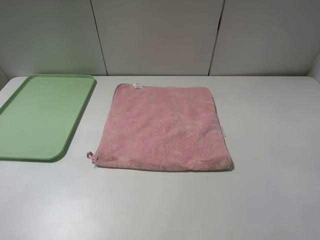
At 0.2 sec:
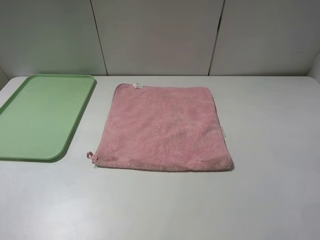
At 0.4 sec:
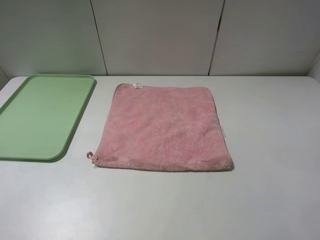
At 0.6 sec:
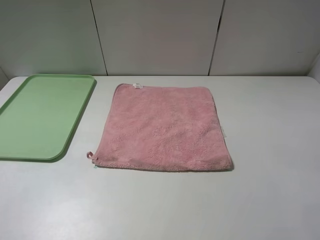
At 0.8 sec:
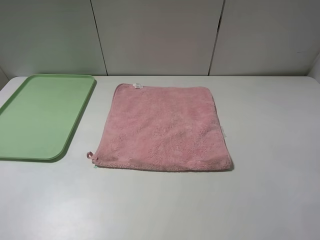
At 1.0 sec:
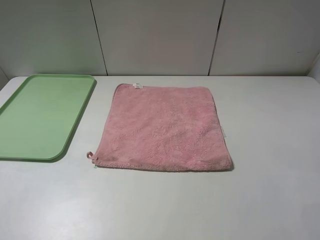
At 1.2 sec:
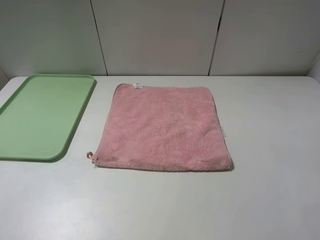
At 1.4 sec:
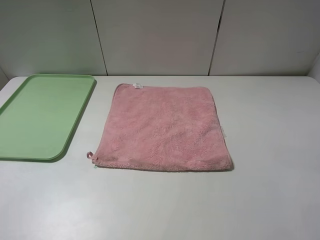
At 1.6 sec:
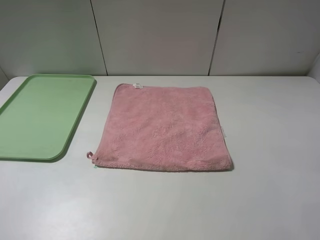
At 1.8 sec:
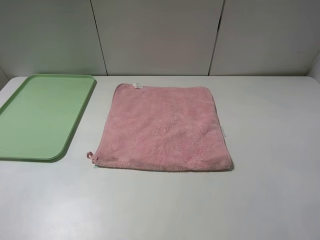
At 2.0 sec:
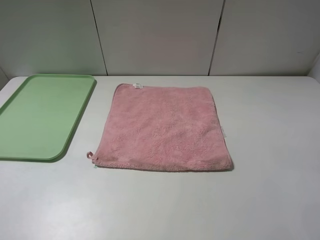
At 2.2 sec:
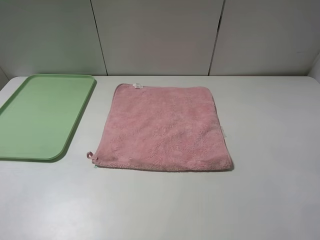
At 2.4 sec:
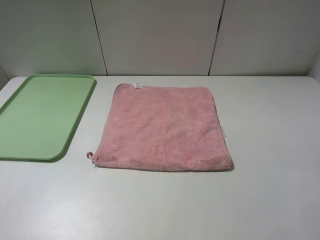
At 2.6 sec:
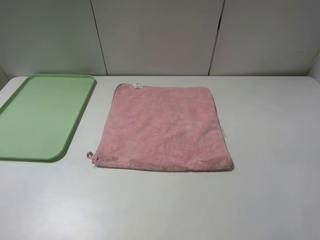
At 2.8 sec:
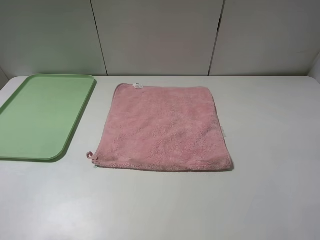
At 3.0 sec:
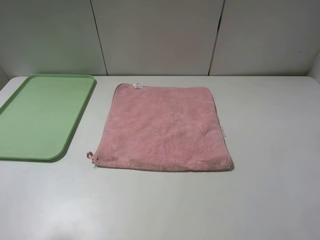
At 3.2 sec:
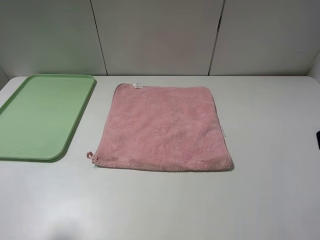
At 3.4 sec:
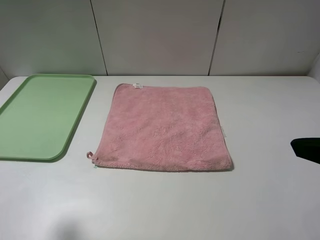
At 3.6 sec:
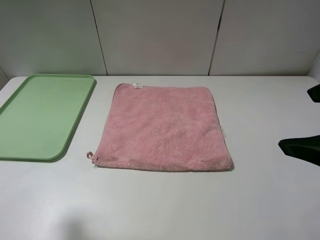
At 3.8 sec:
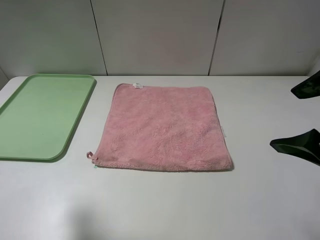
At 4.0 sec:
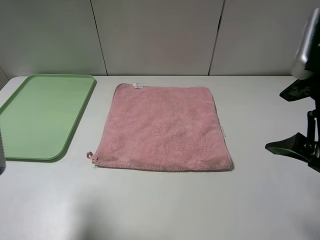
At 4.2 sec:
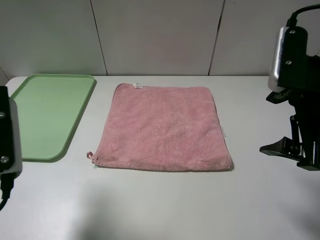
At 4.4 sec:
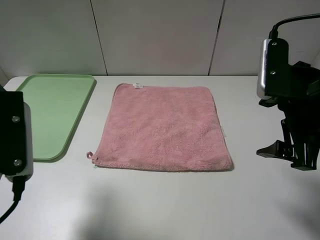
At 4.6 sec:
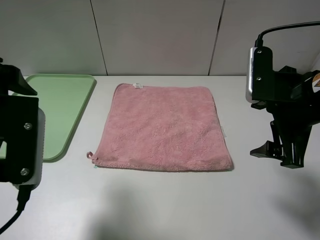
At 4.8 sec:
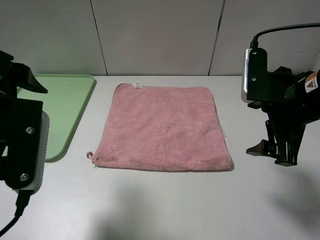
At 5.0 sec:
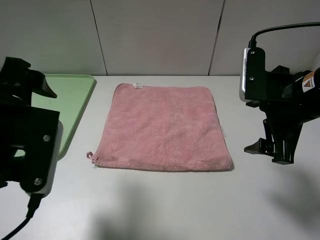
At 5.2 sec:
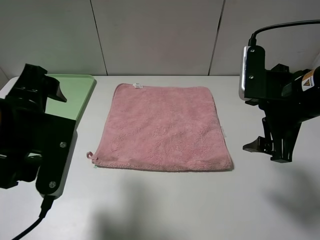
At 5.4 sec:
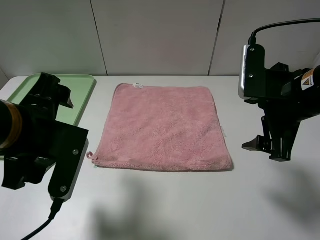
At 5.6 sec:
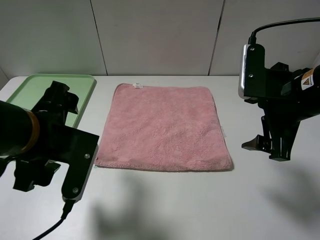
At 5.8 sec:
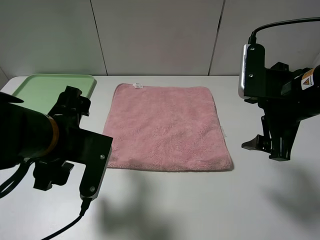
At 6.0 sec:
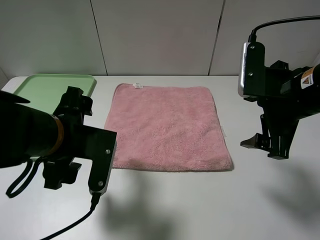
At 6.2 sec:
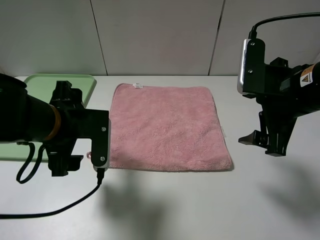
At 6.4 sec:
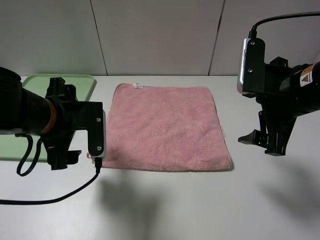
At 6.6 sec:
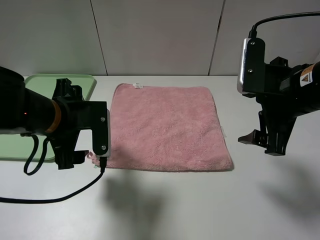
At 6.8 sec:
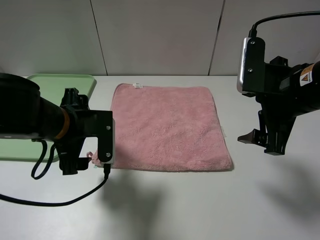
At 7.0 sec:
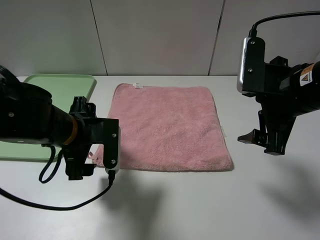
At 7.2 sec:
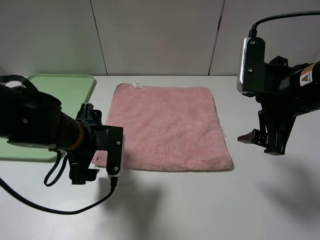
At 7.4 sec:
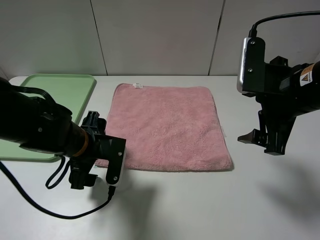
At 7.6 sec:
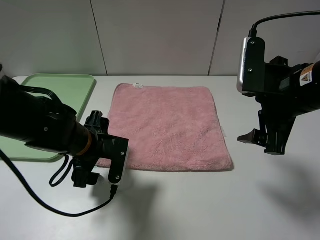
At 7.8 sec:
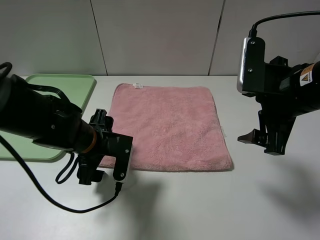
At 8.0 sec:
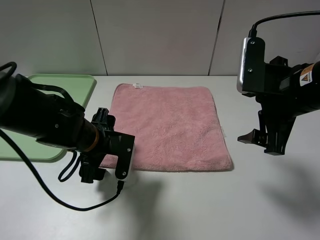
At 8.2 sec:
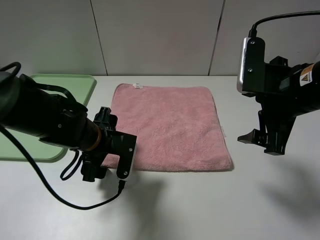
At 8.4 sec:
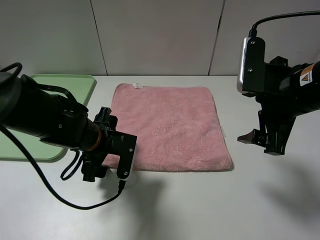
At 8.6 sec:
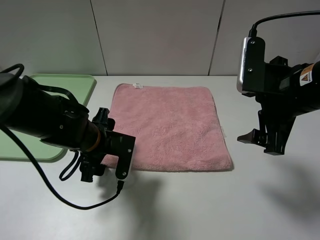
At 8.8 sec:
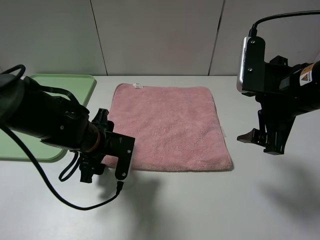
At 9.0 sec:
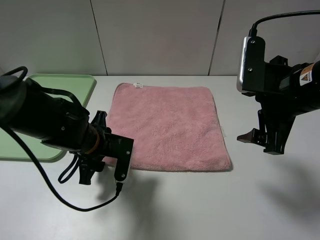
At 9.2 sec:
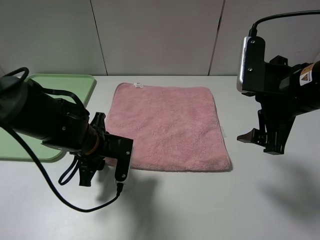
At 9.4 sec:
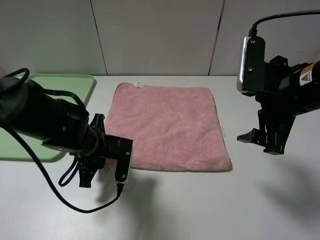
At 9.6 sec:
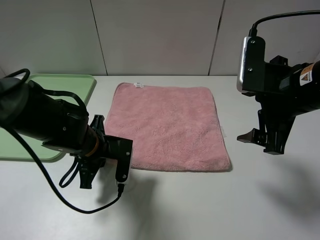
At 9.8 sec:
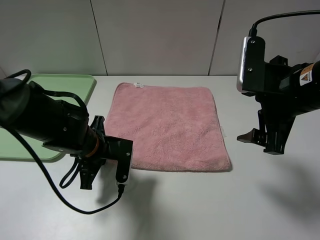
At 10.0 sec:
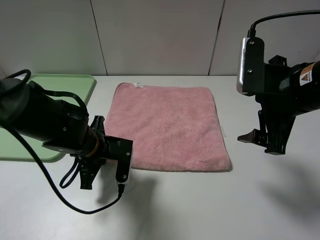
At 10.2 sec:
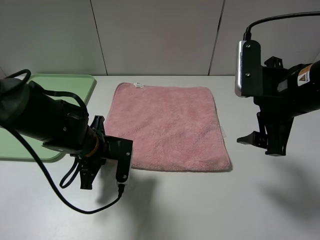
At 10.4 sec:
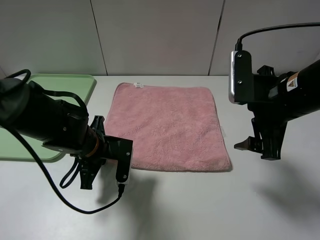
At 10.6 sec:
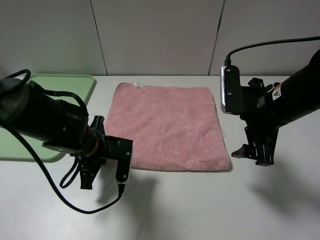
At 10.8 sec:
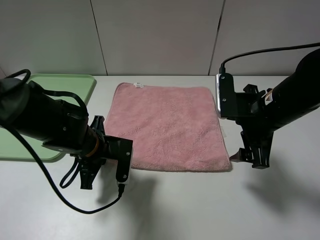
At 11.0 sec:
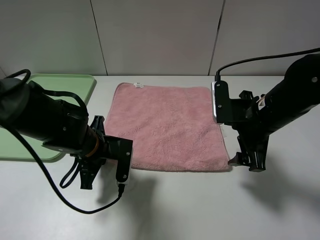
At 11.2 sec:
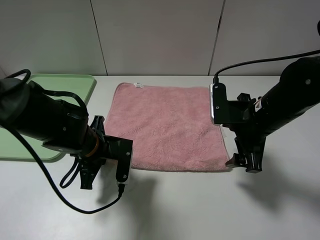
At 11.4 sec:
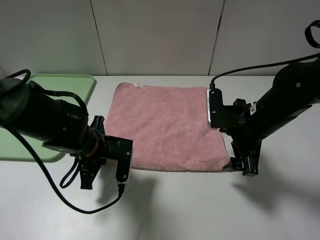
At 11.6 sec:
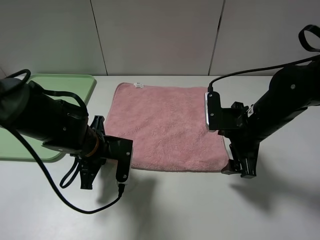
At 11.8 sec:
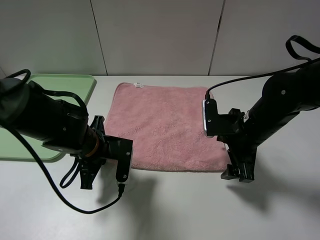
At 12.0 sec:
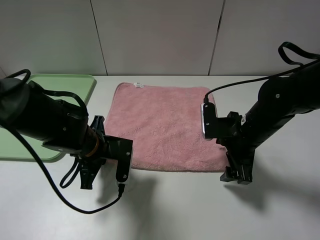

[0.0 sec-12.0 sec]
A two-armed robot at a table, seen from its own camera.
0.0 sec to 1.6 sec: Both grippers stay put.
3.0 sec to 4.4 sec: The left gripper shifts some 10 cm to the right and forward, while the right gripper shifts approximately 15 cm forward, downward and to the left.
4.4 sec to 6.0 sec: The left gripper shifts some 10 cm downward and to the right.
6.0 sec to 7.6 sec: The left gripper is displaced downward by about 10 cm.
7.6 sec to 9.0 sec: The left gripper closes its fingers.
9.0 sec to 10.4 sec: The left gripper closes.
10.4 sec to 12.0 sec: The right gripper shifts about 10 cm downward.

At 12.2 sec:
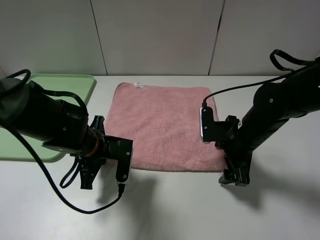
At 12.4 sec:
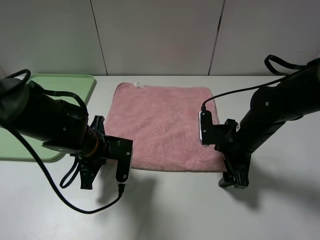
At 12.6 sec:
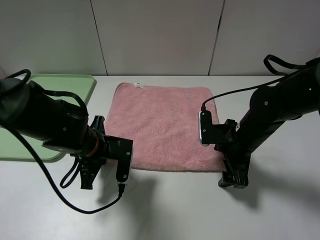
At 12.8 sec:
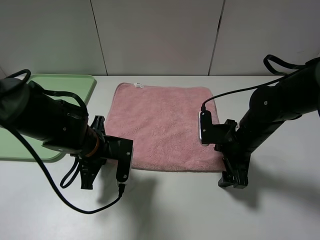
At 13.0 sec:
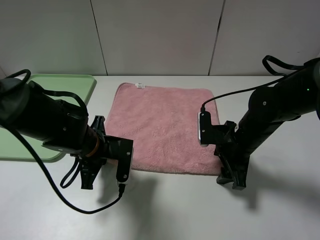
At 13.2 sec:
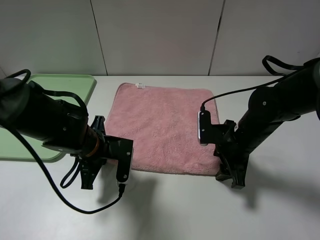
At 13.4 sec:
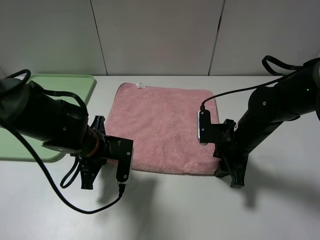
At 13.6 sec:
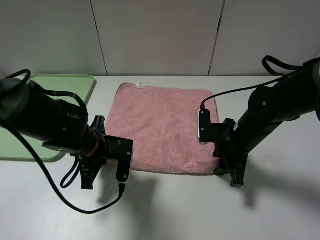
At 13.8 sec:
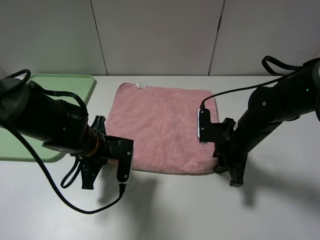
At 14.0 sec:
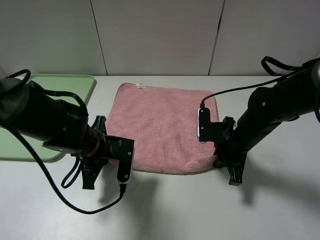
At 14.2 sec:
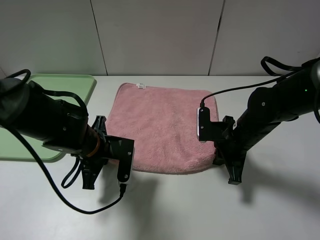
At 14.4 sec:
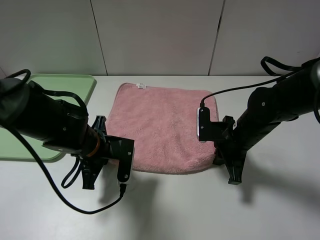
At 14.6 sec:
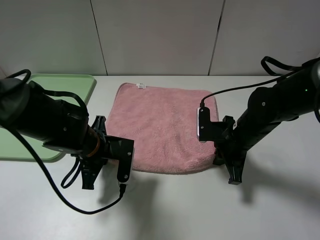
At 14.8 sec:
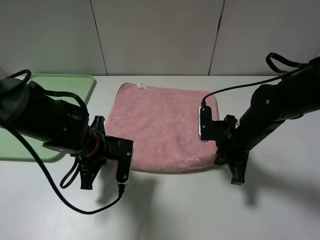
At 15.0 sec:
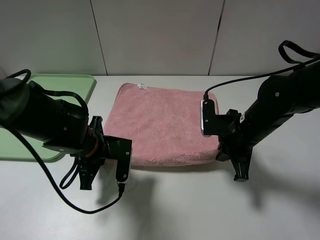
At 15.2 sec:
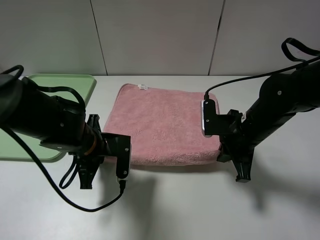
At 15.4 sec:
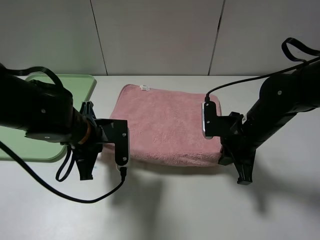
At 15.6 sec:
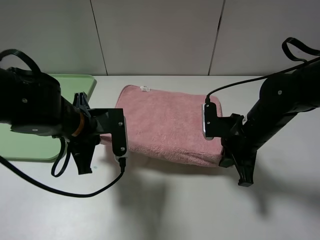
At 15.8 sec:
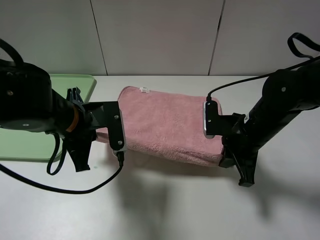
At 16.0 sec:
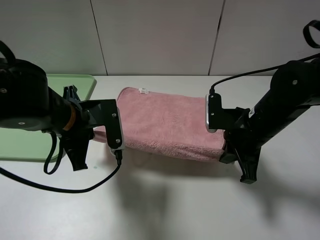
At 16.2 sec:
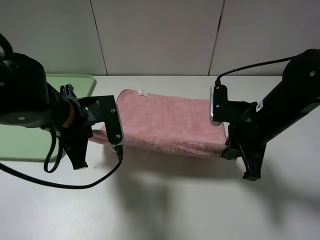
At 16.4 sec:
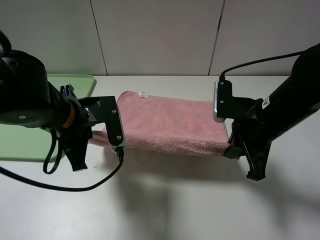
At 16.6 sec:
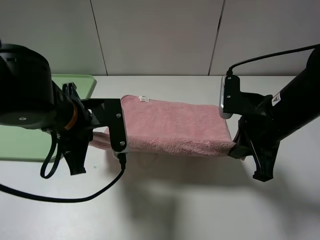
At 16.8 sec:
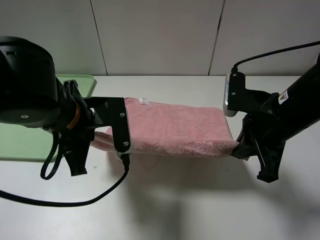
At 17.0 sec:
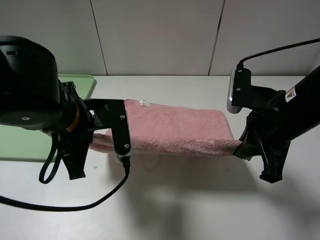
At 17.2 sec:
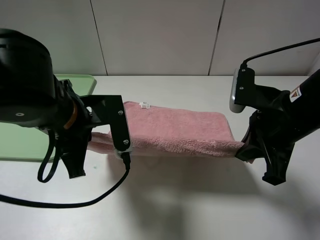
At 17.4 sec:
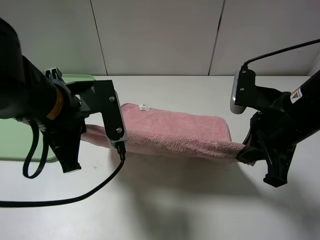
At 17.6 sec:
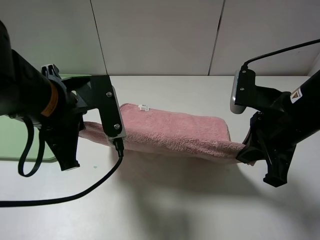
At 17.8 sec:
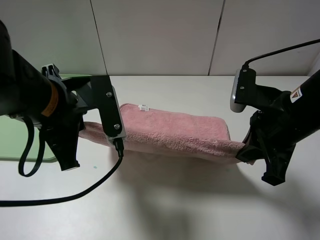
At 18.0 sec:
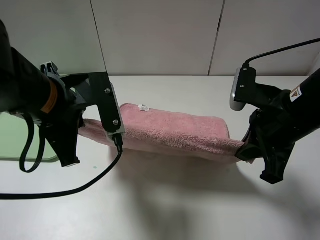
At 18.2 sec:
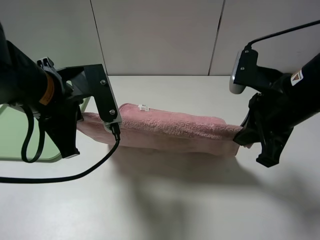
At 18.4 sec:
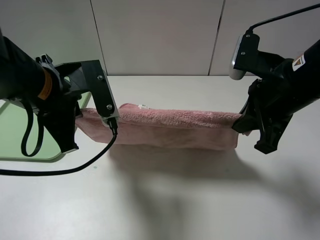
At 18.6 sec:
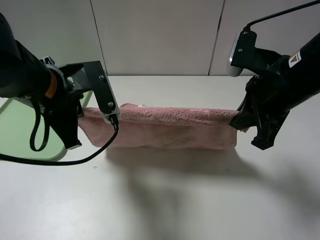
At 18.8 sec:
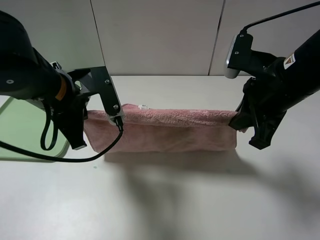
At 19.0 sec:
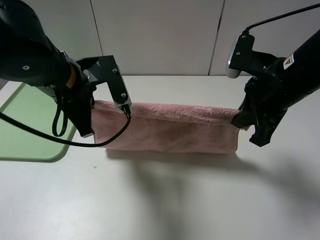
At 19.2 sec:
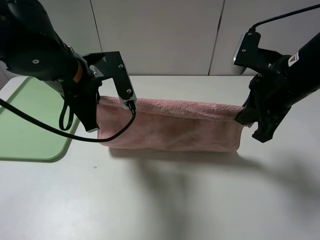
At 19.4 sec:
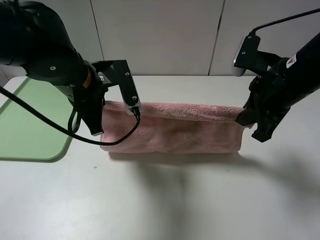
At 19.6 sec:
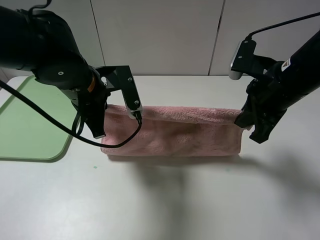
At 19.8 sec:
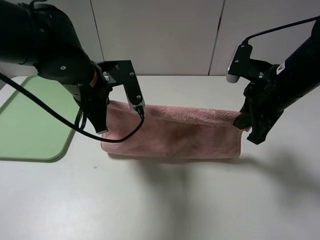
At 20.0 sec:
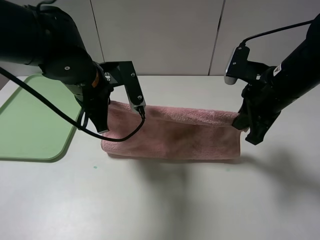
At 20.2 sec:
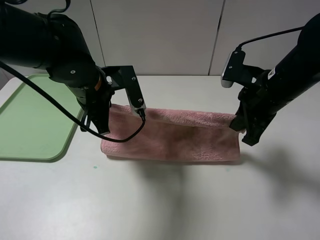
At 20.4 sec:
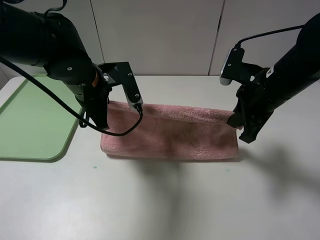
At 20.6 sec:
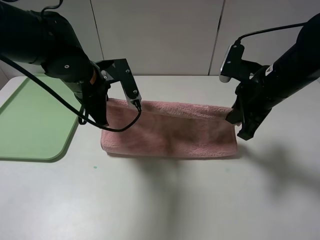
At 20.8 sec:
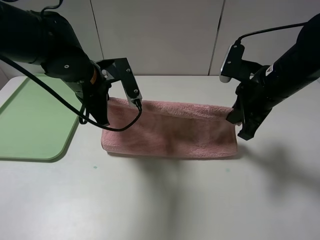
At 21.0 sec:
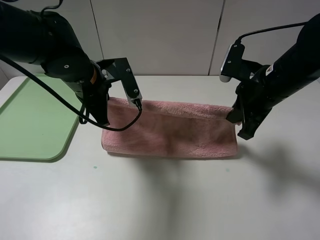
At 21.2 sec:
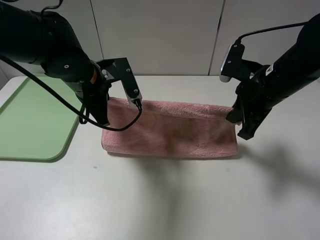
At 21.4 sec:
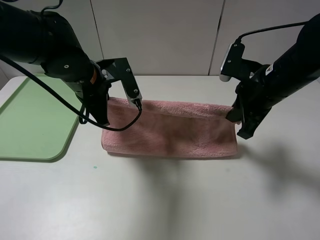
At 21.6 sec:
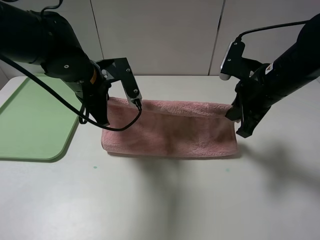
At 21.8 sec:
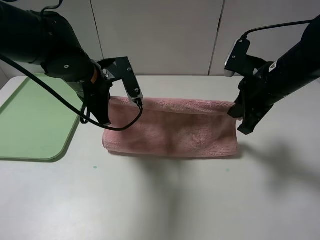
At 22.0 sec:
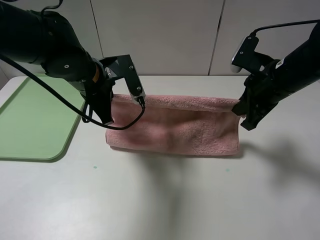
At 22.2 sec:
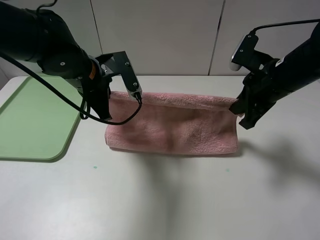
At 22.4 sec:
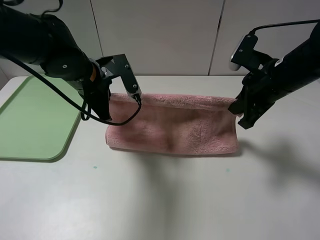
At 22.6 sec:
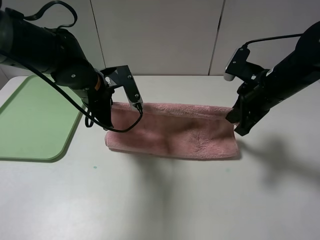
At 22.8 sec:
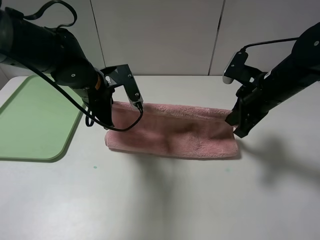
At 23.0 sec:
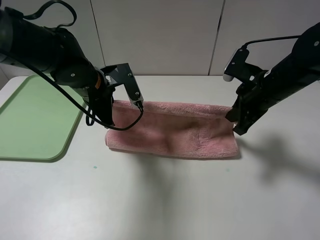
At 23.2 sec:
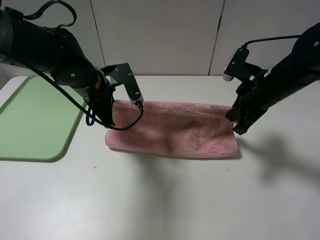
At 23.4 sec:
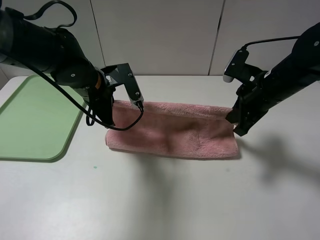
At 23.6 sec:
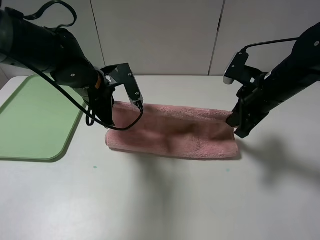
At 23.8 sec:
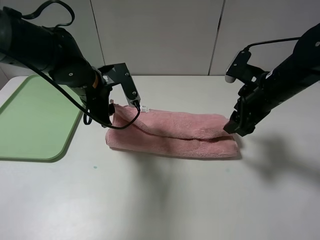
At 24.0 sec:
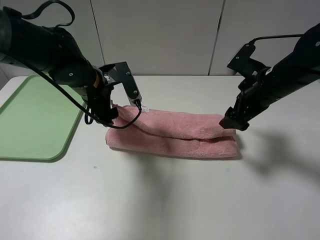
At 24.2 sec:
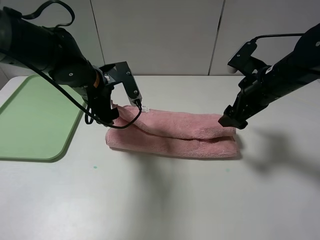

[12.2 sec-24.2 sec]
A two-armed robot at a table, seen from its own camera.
12.2 sec to 13.8 sec: The right gripper closes.
13.8 sec to 15.2 sec: The right gripper closes its fingers.
15.2 sec to 16.6 sec: The grippers both shift upward by about 10 cm.
18.2 sec to 19.8 sec: The right gripper ends up about 5 cm from where it was. The left gripper travels forward by some 10 cm.
19.8 sec to 21.2 sec: The grippers move only a little.
21.2 sec to 22.6 sec: The grippers stay close to where they were, moving slightly.
22.6 sec to 24.2 sec: The right gripper opens its fingers. Meanwhile the left gripper opens up.
